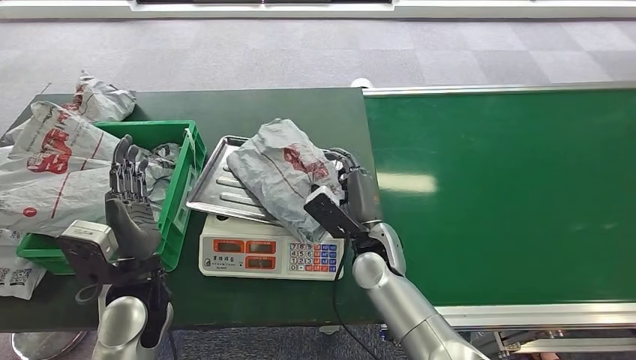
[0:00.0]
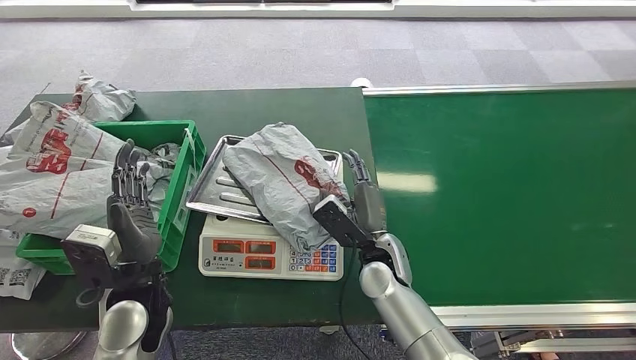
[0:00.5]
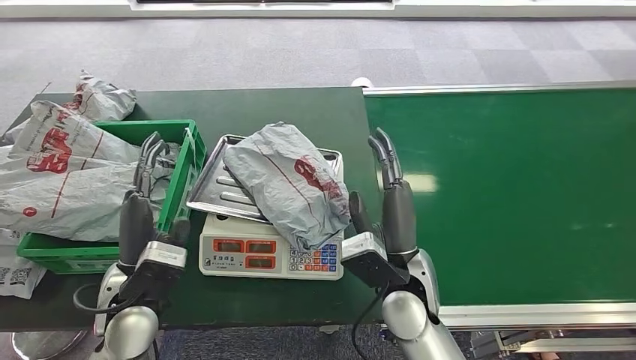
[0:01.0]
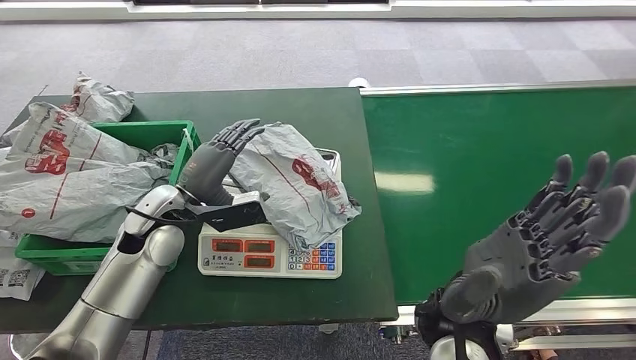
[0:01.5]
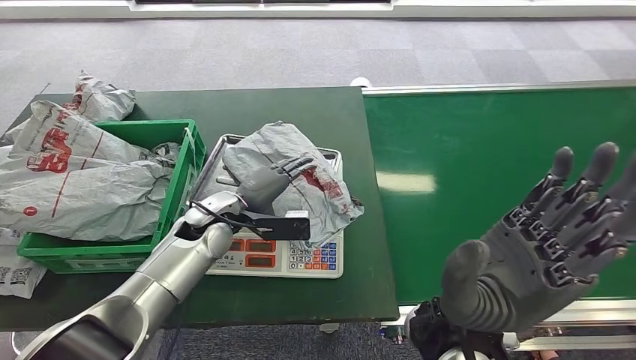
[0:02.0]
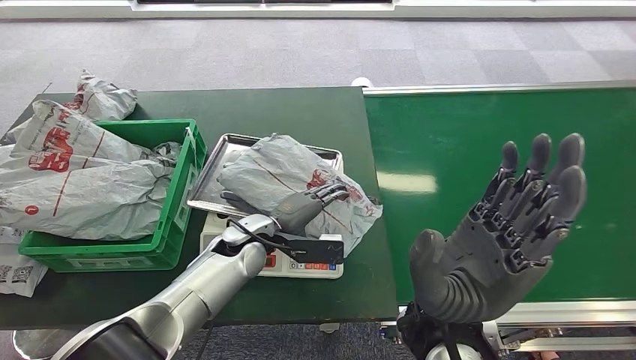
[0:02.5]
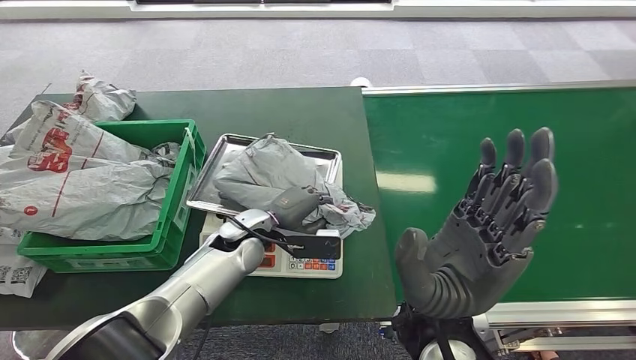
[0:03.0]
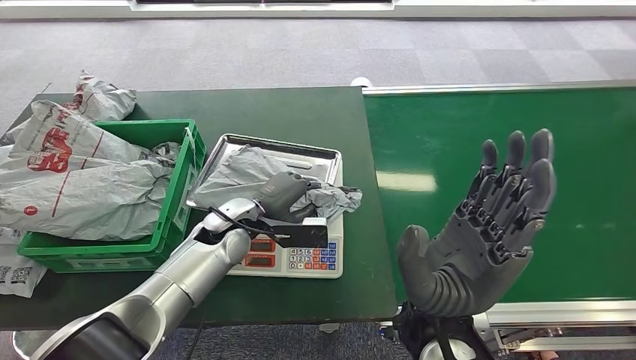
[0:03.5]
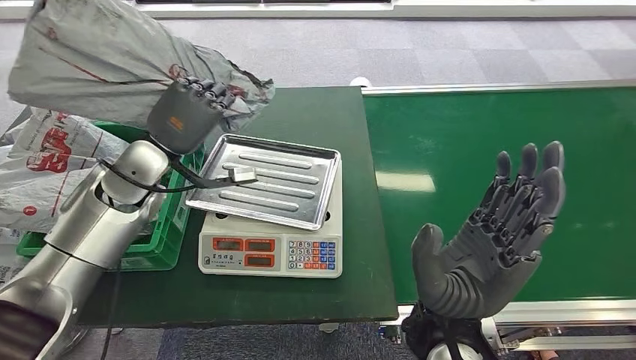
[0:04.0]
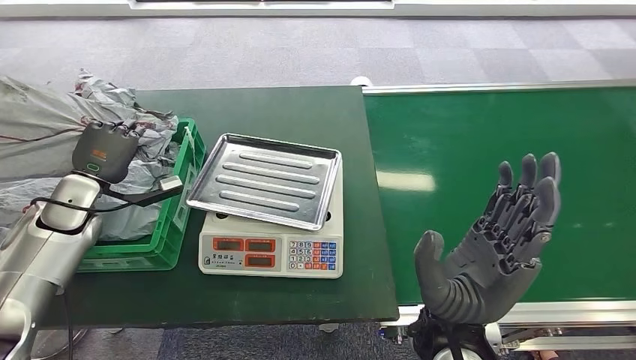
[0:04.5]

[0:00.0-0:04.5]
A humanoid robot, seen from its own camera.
Task of the whole recording: Weigh the package on the weighing device and place it in the left basket.
Step, 0:00.0 to 0:01.5: Place the package onto the inbound machine.
Step, 0:02.0 to 0:03.5: Pick up the package from the inbound machine.
Step, 0:04.0 to 0:04.5: Place the package into the parcel locker.
